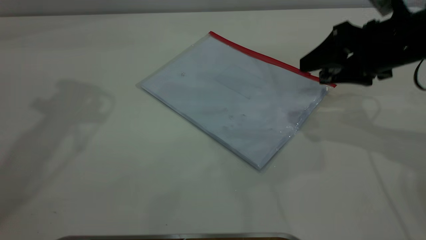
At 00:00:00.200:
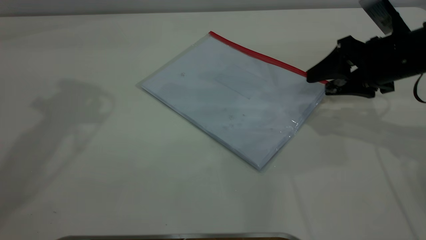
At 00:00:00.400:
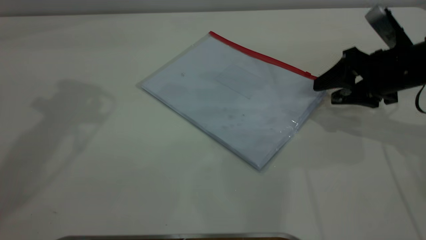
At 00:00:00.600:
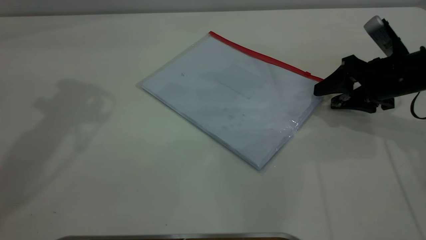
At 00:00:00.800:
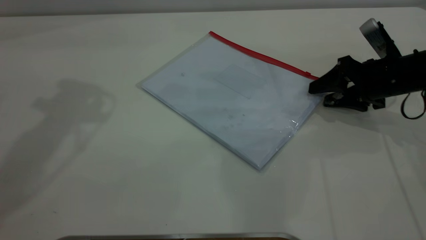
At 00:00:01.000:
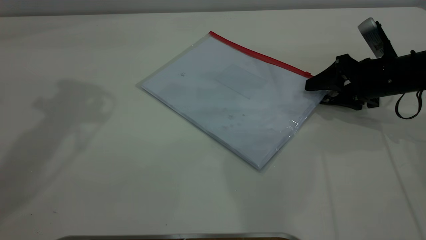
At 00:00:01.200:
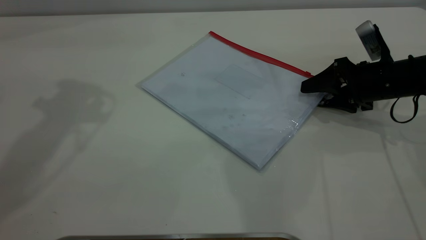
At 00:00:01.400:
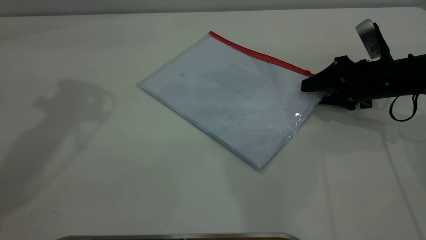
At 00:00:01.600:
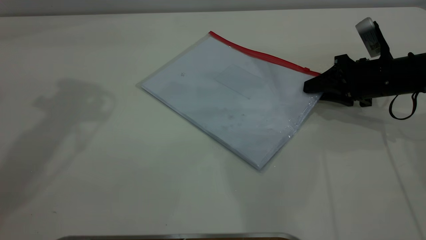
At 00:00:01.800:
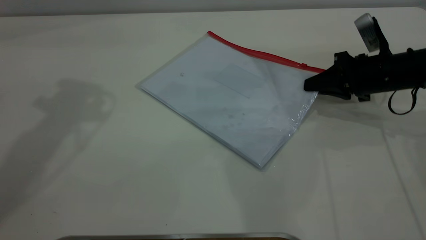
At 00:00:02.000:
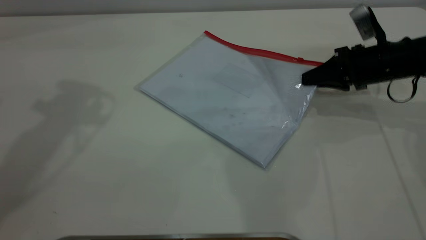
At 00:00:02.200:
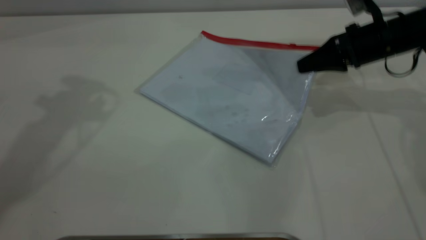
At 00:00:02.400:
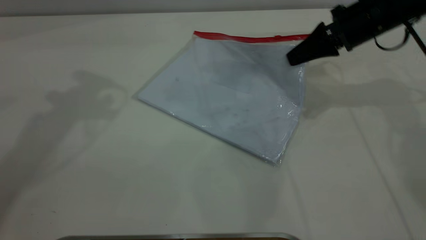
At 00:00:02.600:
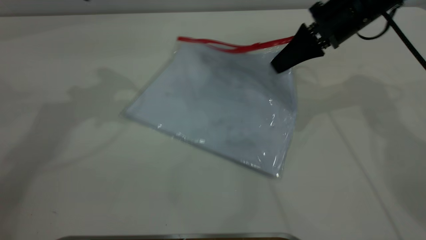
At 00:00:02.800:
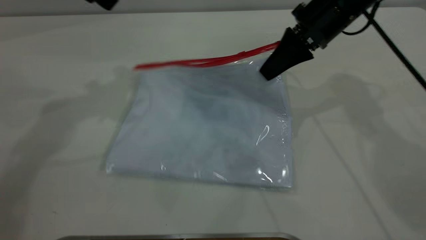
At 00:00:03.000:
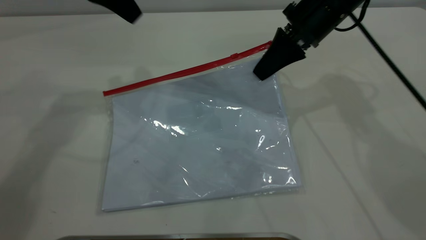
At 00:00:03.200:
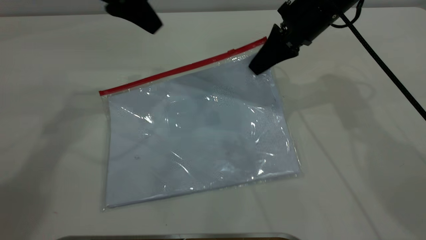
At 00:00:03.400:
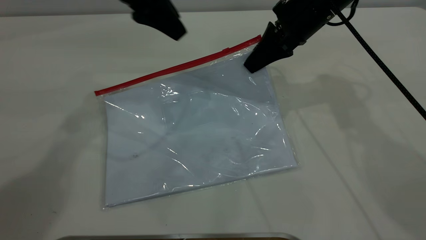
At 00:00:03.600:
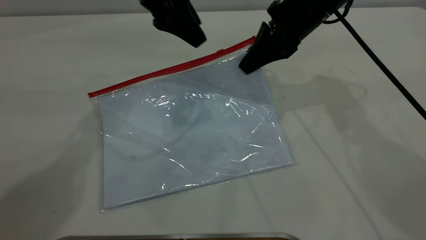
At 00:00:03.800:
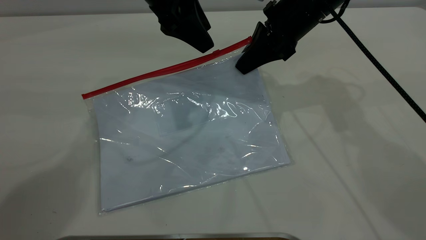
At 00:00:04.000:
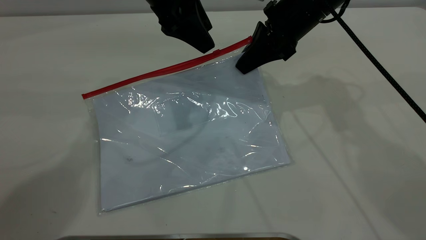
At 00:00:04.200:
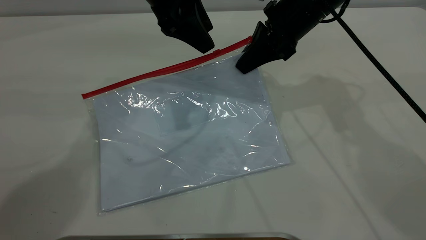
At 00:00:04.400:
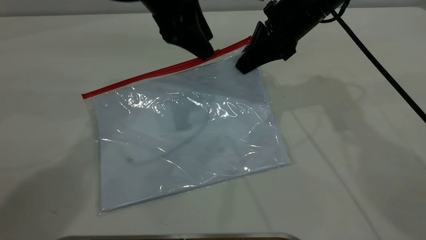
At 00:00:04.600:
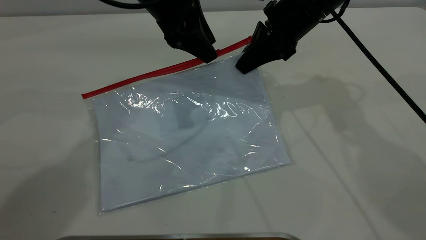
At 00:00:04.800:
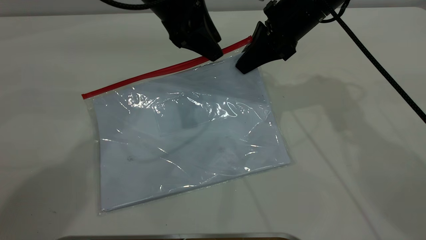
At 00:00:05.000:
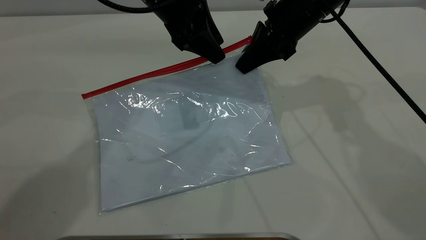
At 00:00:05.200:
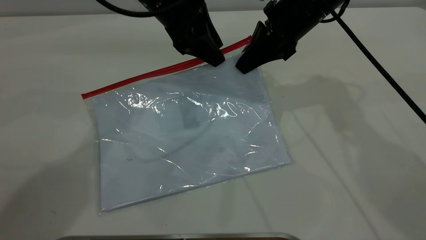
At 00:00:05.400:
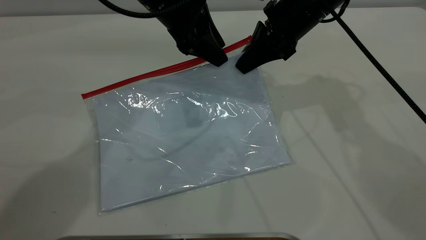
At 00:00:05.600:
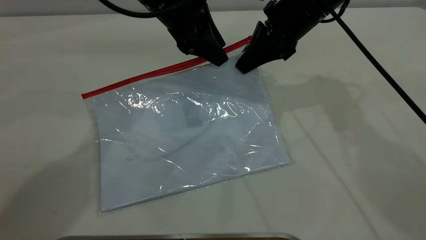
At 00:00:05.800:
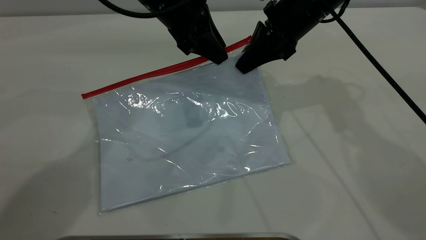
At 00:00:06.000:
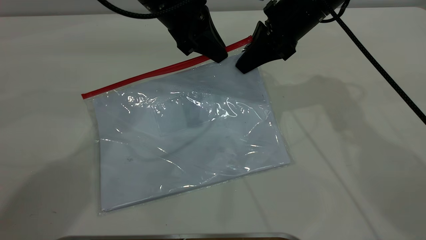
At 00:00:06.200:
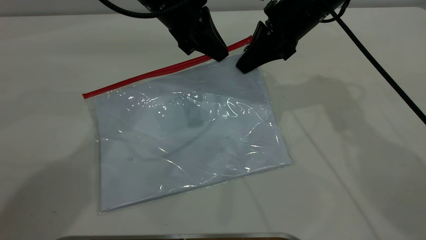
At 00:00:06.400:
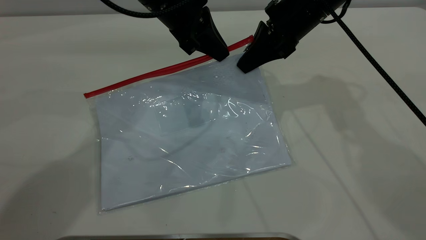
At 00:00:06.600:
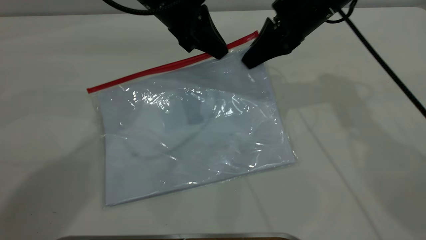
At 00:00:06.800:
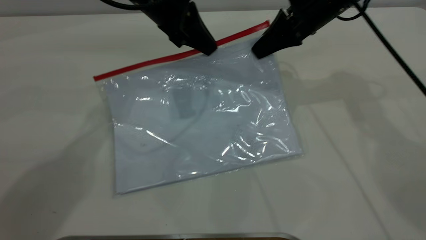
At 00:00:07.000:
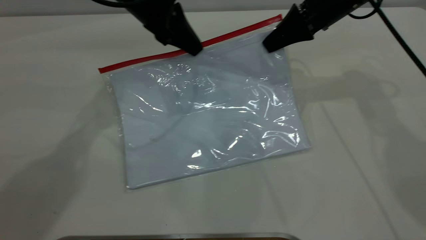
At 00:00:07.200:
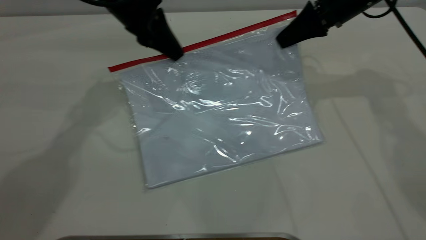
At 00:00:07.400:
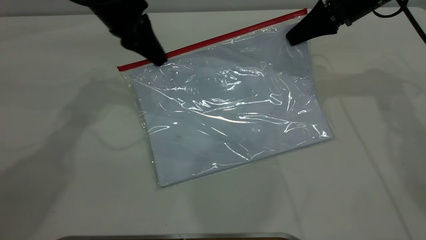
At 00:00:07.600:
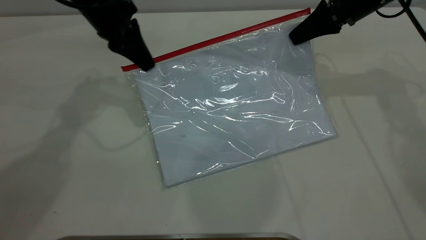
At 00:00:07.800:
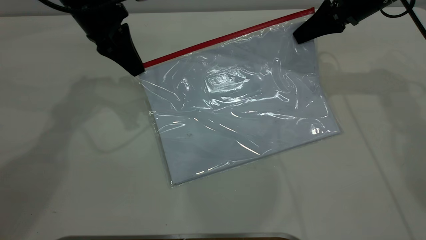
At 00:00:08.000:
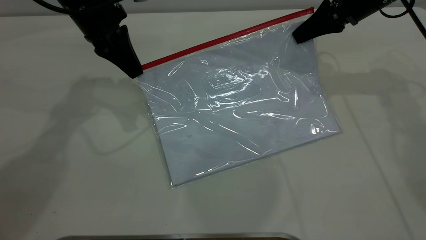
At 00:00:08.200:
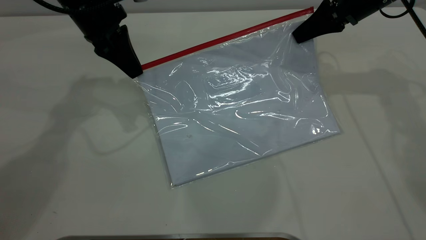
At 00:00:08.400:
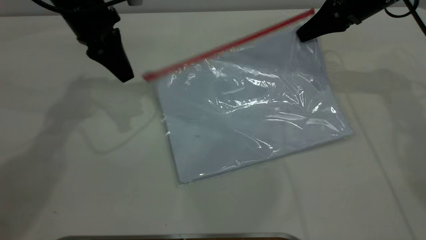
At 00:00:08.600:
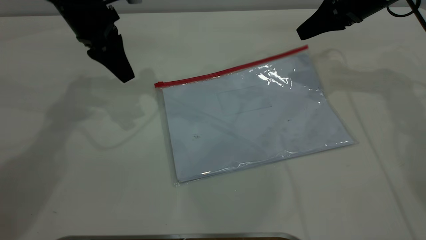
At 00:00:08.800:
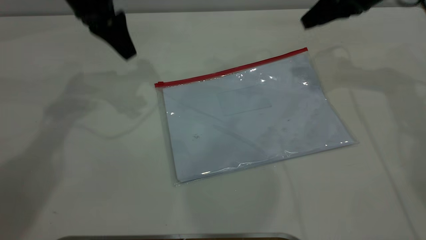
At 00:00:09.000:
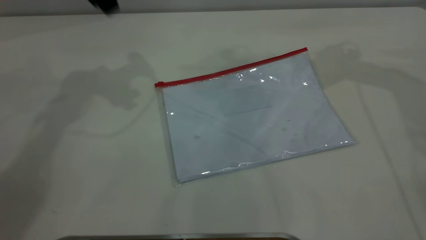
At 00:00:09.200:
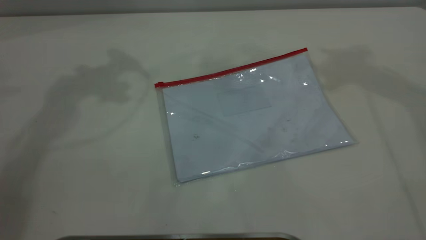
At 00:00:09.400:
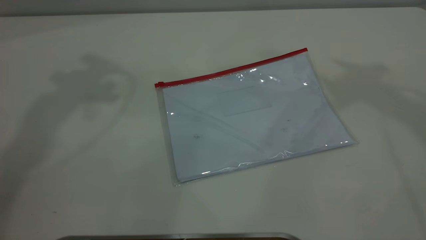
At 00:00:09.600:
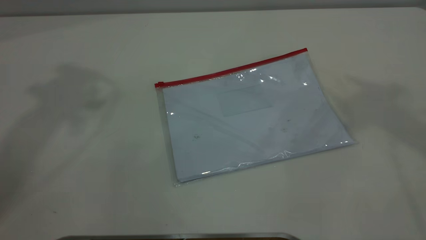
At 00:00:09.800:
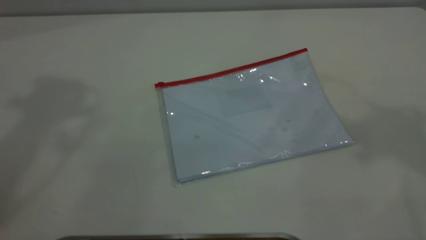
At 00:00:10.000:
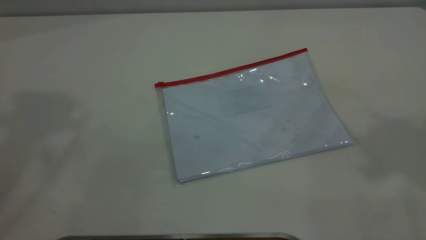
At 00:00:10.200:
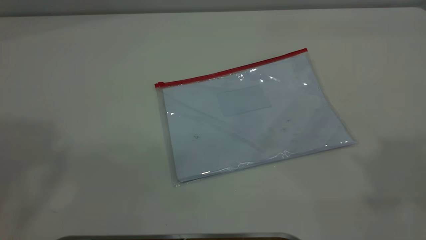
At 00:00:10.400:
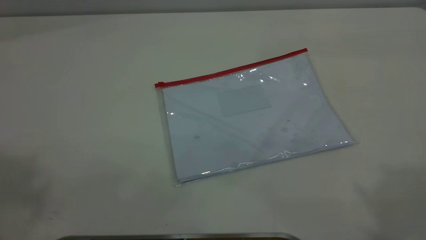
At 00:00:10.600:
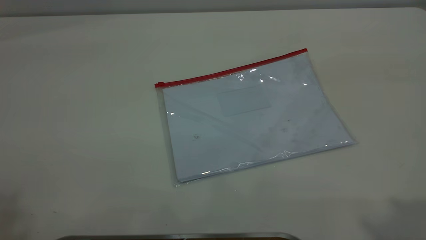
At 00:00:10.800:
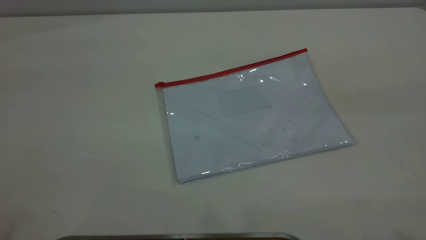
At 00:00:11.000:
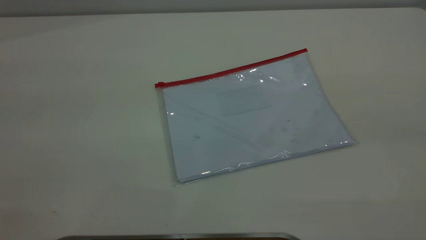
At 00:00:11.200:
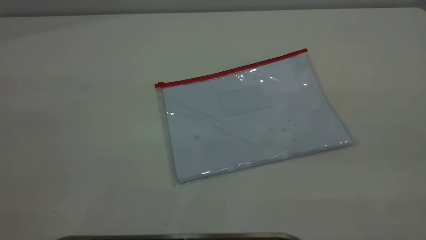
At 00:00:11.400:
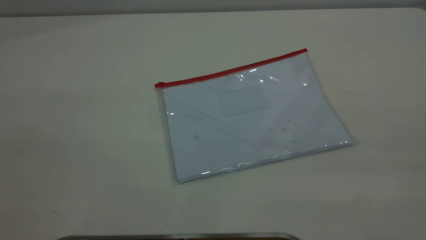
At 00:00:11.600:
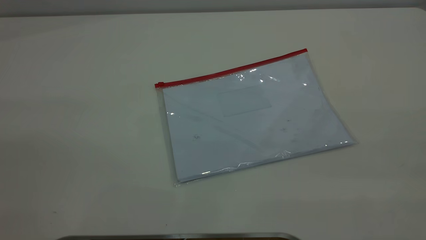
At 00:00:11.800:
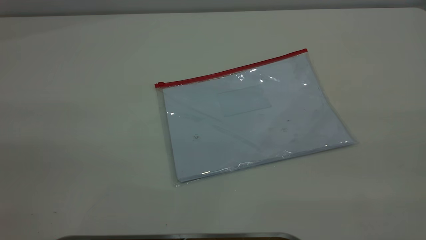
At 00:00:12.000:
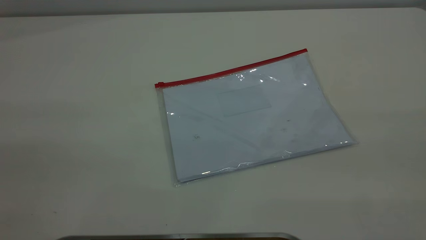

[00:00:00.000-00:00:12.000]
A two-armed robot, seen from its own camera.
Step, 00:00:00.000 to 00:00:02.000: Pick up the transparent plastic bag with the right gripper.
Step, 00:00:02.200 to 00:00:08.200: Pulling up the zipper on the transparent plastic bag with the left gripper to close it.
Step, 00:00:08.400 to 00:00:08.600: Place the transparent plastic bag.
00:00:00.000 to 00:00:01.600: The right gripper is displaced downward by some 10 cm, and closes.
00:00:01.600 to 00:00:03.000: The left gripper is displaced downward, to the right and forward by approximately 15 cm; the right gripper shifts about 15 cm to the left and upward.
00:00:03.000 to 00:00:04.400: The left gripper is displaced to the right and downward by roughly 10 cm.
00:00:04.400 to 00:00:06.000: The left gripper closes its fingers.
00:00:06.000 to 00:00:07.600: The left gripper shifts approximately 10 cm to the left. The right gripper travels to the right by about 10 cm.
00:00:07.600 to 00:00:09.000: Both grippers travel together upward, about 15 cm. The right gripper opens up. The left gripper opens its fingers.

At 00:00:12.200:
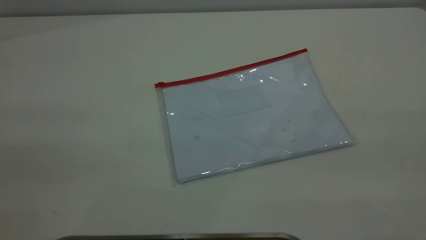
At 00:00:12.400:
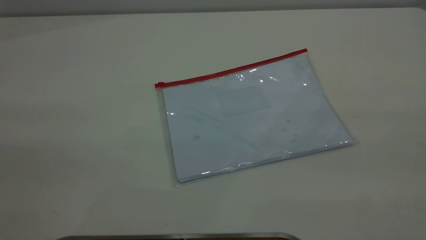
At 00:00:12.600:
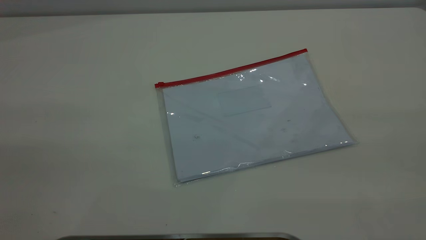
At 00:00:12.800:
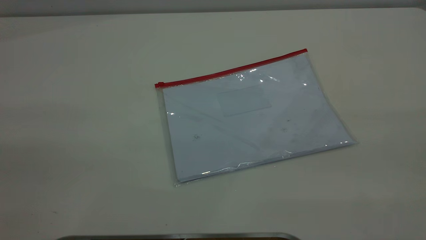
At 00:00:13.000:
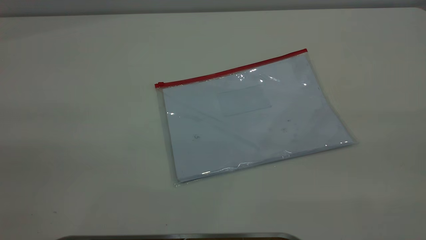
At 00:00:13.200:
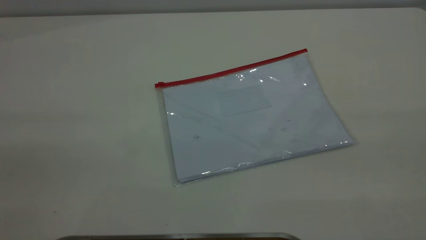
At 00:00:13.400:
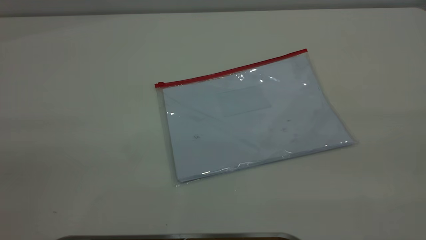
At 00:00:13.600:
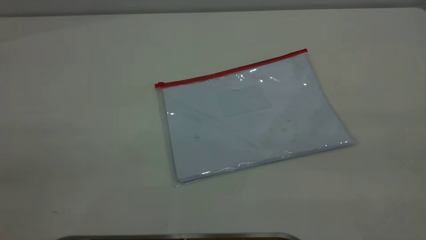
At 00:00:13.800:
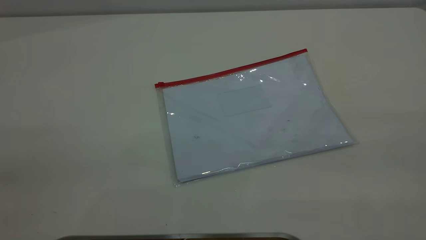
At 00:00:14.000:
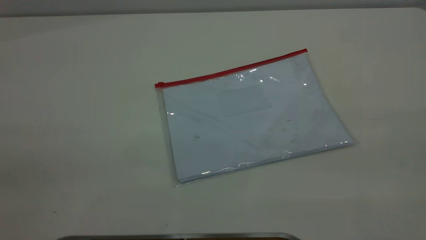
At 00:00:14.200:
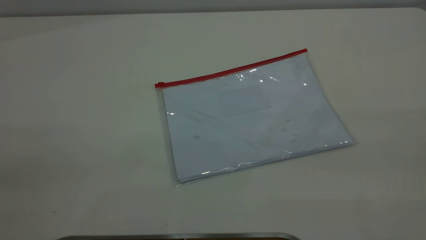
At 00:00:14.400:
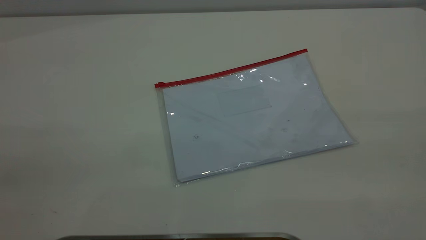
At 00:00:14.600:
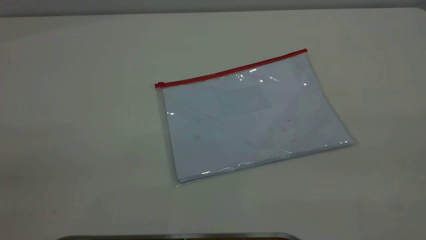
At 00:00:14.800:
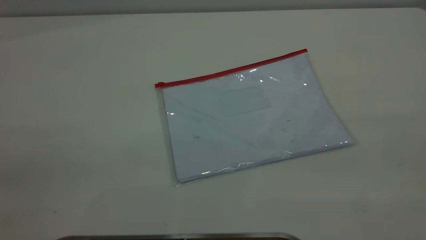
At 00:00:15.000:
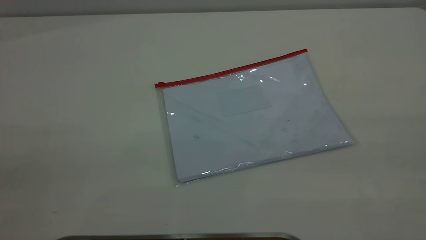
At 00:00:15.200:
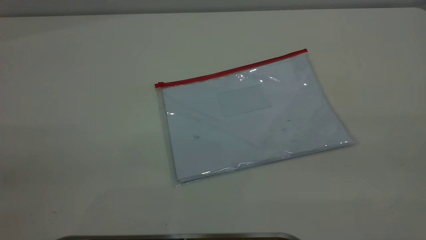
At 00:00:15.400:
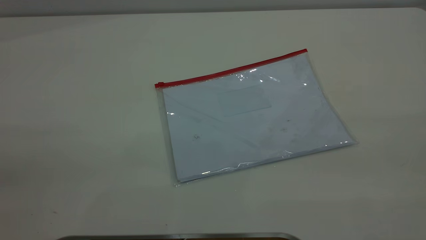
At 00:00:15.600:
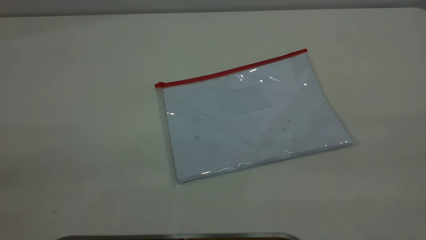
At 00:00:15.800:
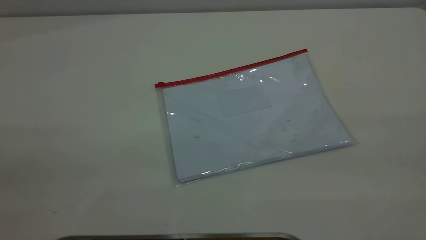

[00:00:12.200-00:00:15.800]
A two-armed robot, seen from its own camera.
00:00:14.000 to 00:00:15.800: Both grippers stay about where they are.
